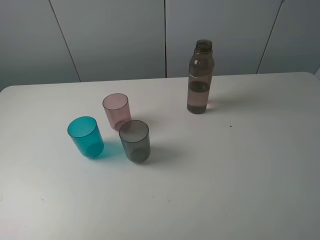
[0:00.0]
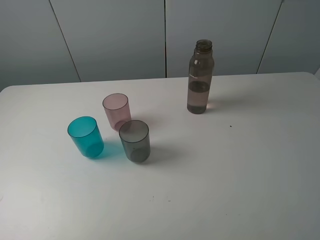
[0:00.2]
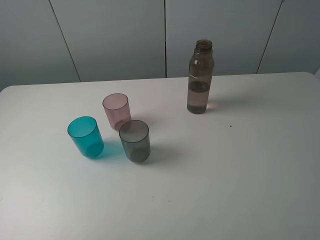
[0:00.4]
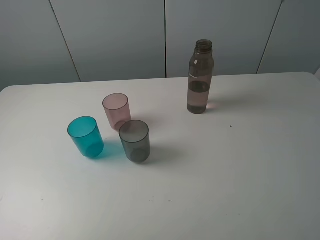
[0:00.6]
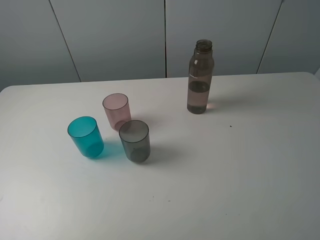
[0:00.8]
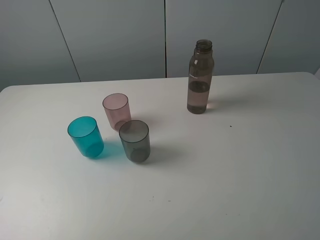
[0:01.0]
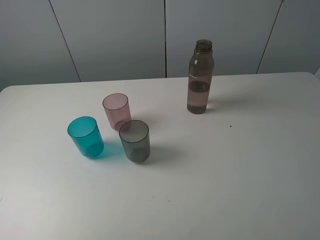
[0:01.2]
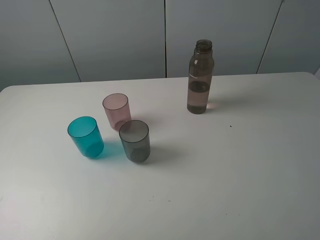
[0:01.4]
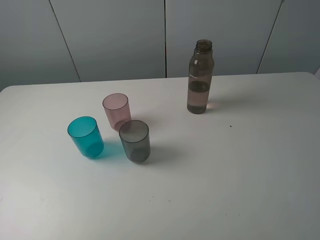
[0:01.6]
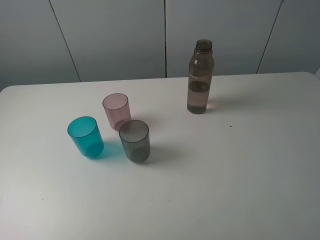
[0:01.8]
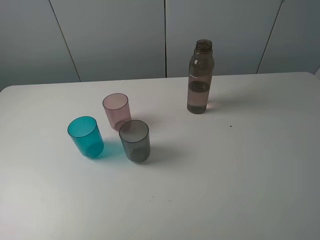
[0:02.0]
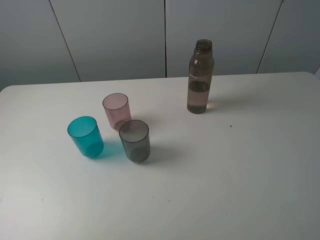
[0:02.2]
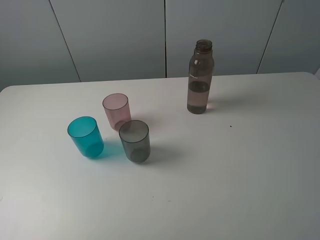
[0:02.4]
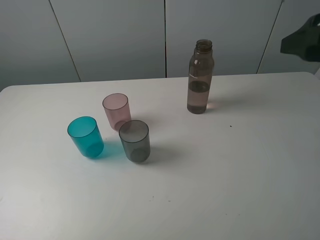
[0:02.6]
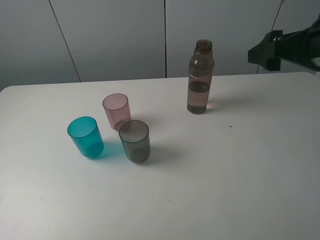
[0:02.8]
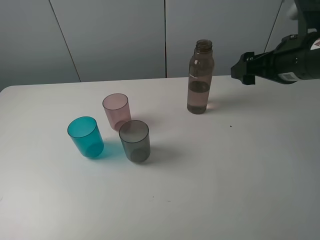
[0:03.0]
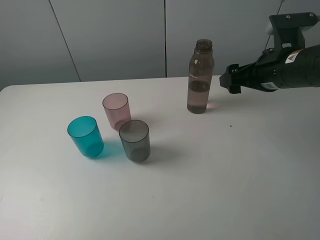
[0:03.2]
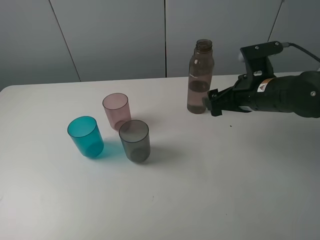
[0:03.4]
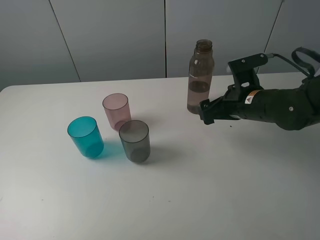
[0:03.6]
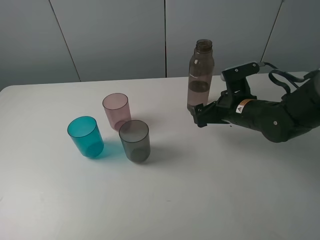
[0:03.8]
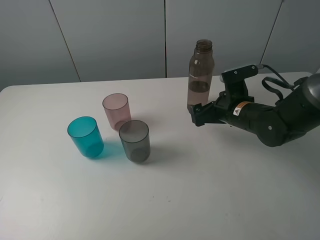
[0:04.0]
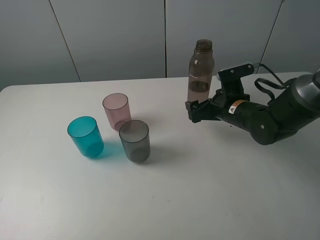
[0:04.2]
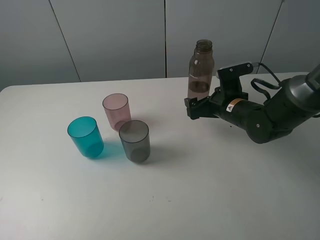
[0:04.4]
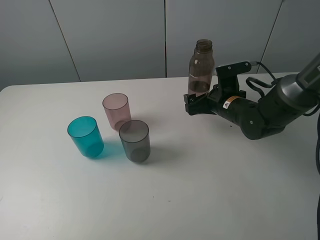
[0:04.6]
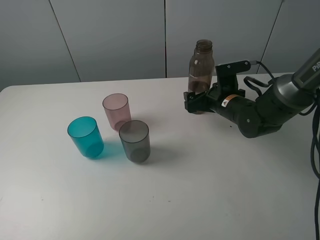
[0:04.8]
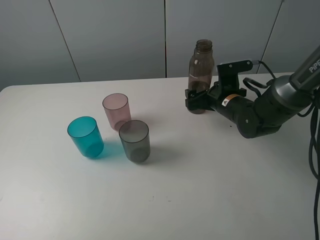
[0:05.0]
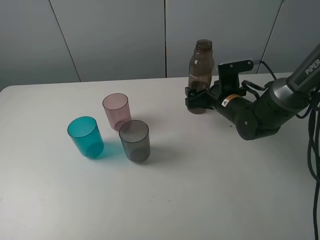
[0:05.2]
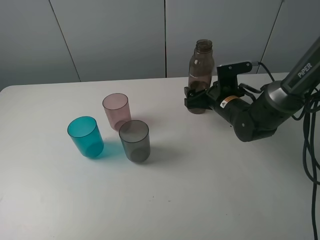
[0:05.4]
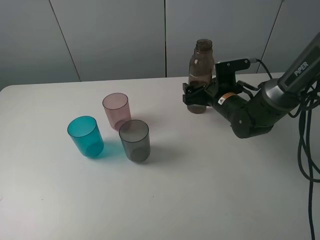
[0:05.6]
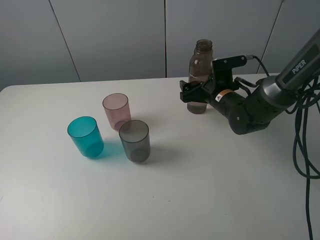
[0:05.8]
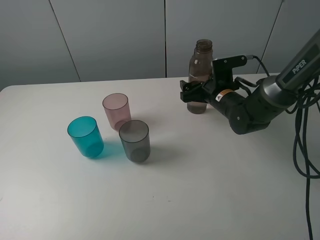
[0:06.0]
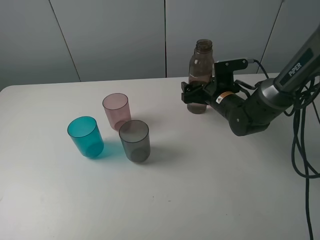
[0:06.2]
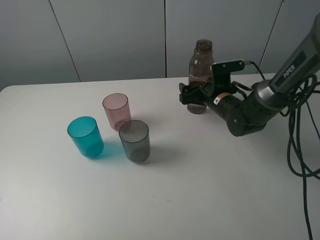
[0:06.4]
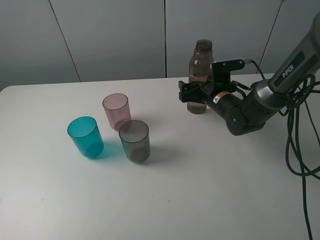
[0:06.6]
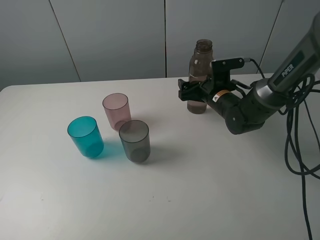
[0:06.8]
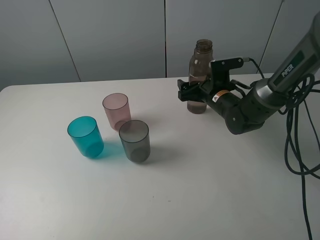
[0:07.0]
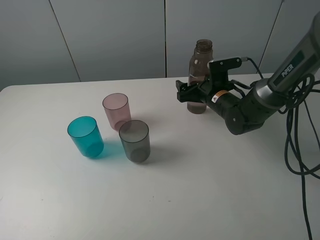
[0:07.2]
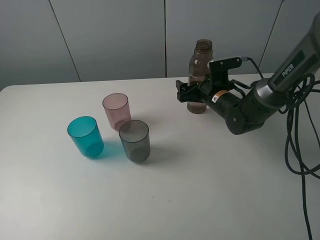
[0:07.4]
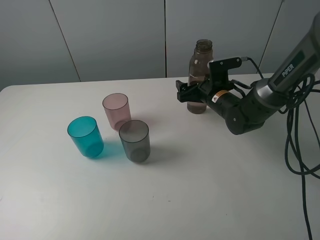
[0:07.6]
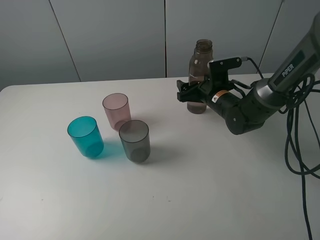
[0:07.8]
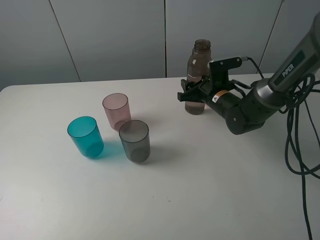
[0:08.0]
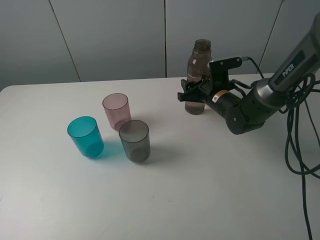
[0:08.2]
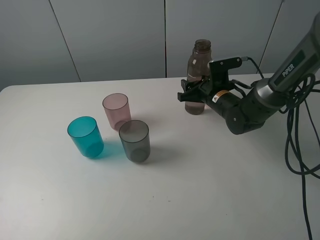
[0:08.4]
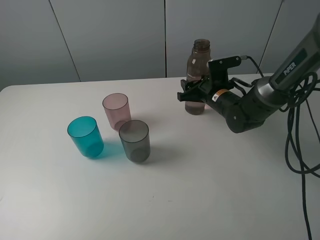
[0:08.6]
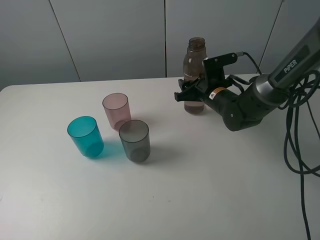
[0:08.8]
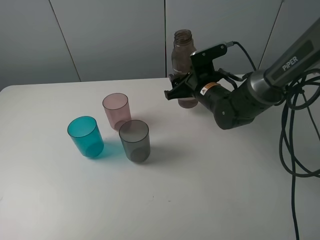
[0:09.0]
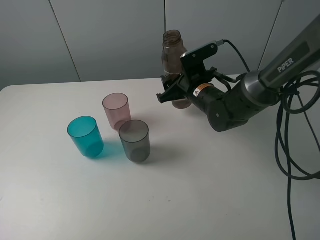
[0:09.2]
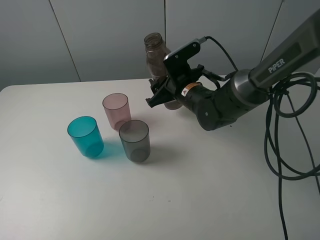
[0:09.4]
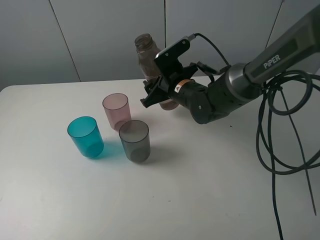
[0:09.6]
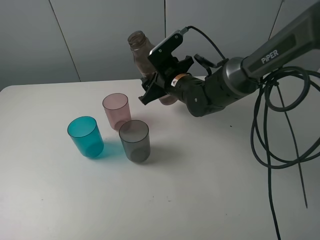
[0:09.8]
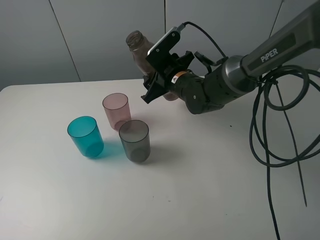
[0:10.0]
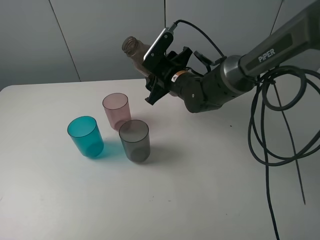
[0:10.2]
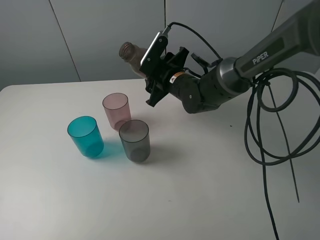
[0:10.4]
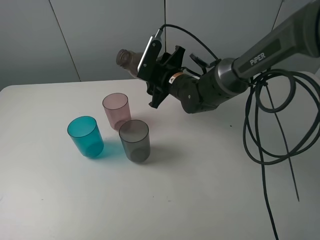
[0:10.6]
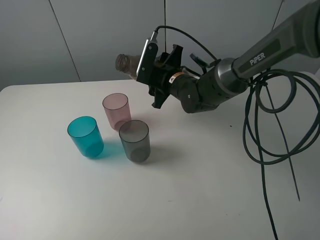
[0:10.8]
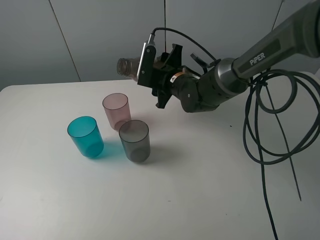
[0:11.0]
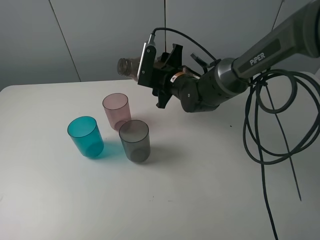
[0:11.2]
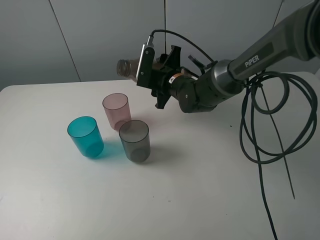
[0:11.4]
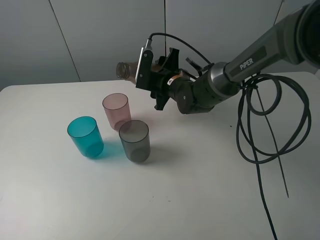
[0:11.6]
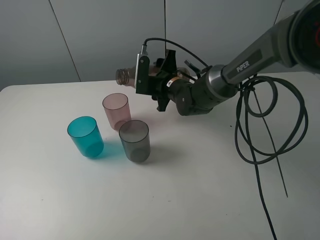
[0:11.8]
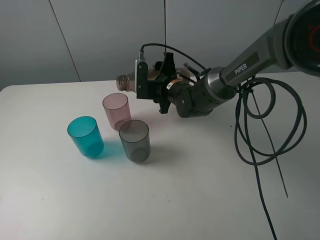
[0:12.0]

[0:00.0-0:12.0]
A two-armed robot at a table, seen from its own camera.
Task of the whole recording: pick up the bottle filled with water and pour water into the middle cup of the three cups.
Step, 0:00.0 to 0:08.4: Grasp the transparent bottle with the right gripper.
0:00.0 to 0:01.6: The two grippers keep their place.
0:01.6 to 0:03.0: The right gripper moves forward, some 25 cm.
0:03.0 to 0:04.4: The right gripper is displaced downward and to the left by some 15 cm.
0:04.4 to 0:07.6: There are only small adjustments of the grippers.
0:07.6 to 0:09.0: The right gripper closes.
0:09.0 to 0:10.4: The right gripper is displaced to the left by approximately 5 cm.

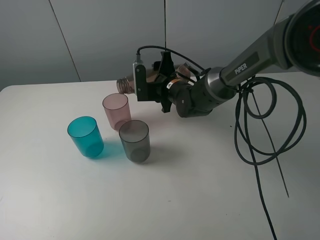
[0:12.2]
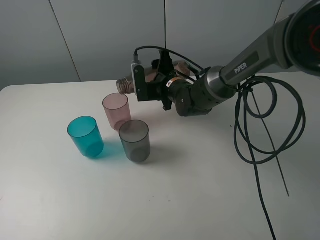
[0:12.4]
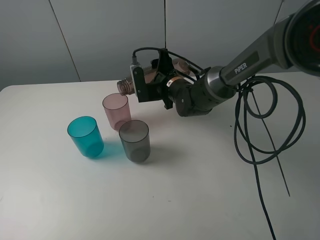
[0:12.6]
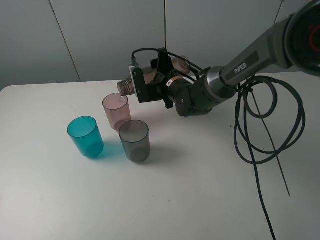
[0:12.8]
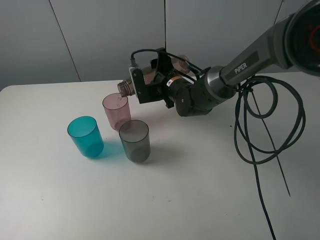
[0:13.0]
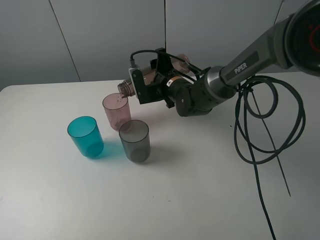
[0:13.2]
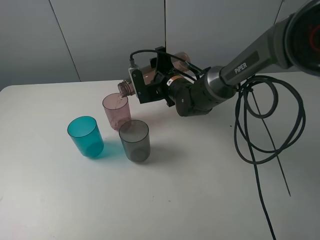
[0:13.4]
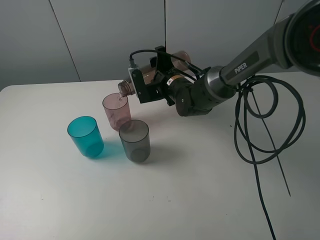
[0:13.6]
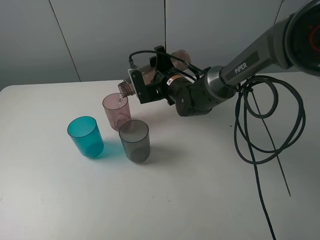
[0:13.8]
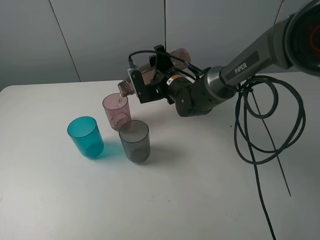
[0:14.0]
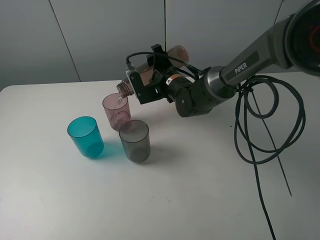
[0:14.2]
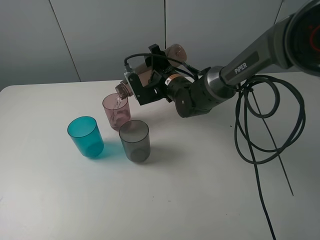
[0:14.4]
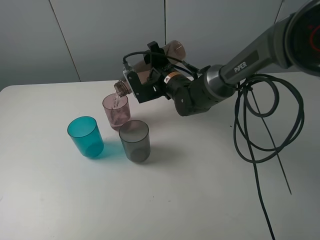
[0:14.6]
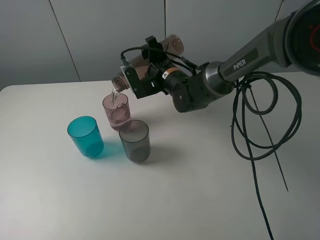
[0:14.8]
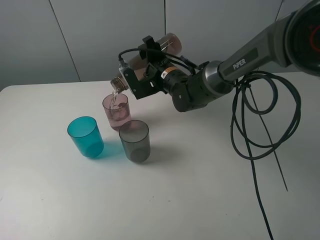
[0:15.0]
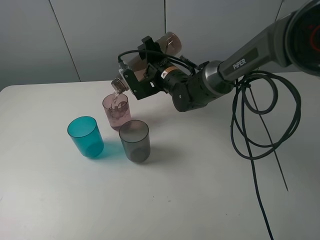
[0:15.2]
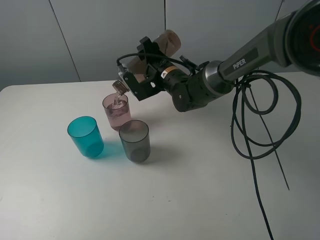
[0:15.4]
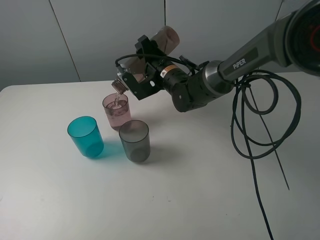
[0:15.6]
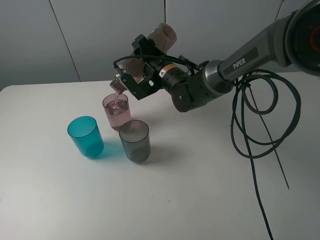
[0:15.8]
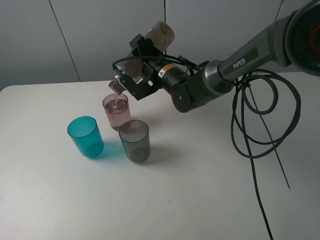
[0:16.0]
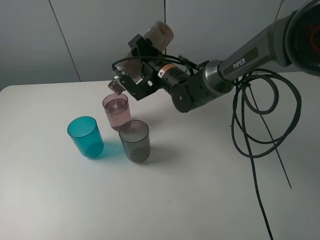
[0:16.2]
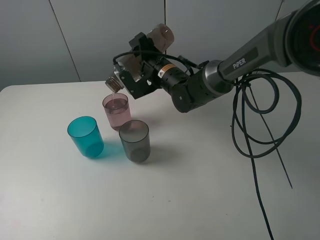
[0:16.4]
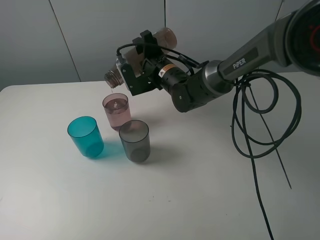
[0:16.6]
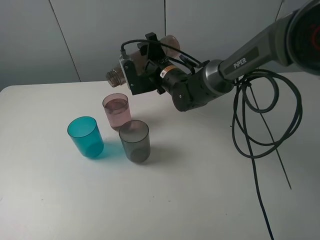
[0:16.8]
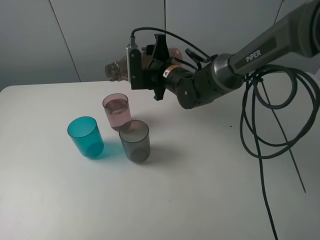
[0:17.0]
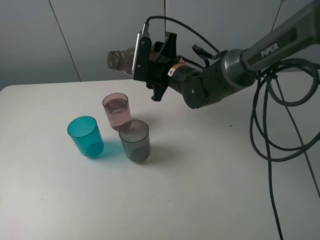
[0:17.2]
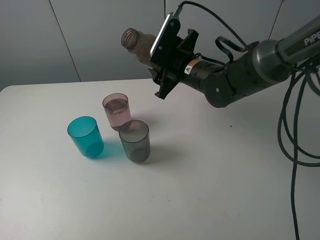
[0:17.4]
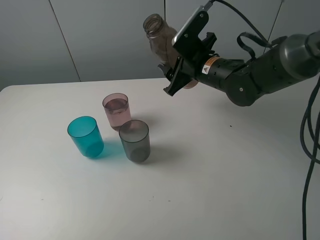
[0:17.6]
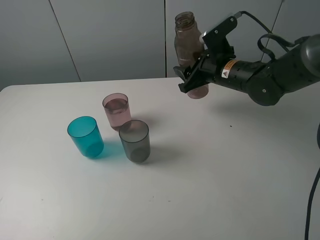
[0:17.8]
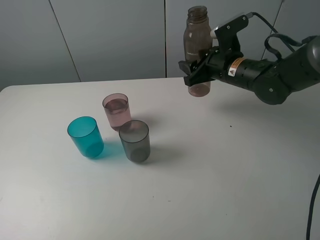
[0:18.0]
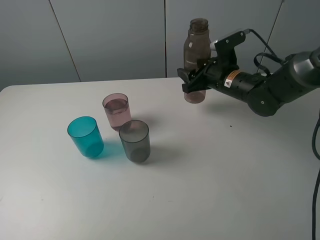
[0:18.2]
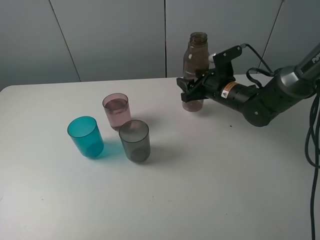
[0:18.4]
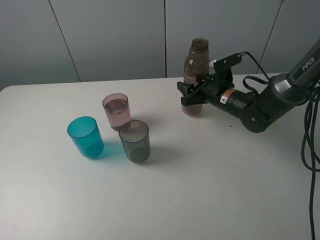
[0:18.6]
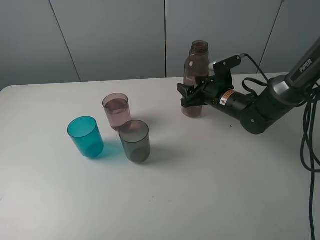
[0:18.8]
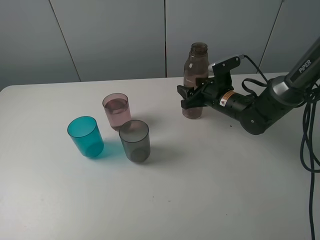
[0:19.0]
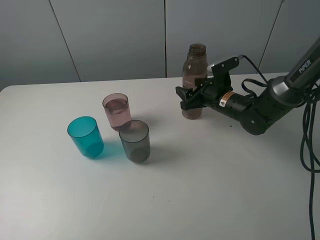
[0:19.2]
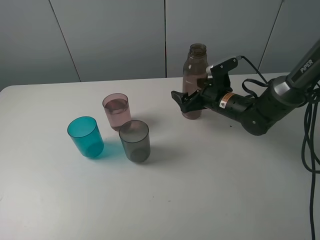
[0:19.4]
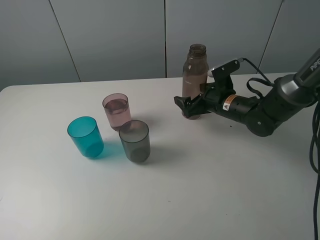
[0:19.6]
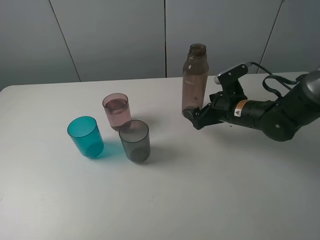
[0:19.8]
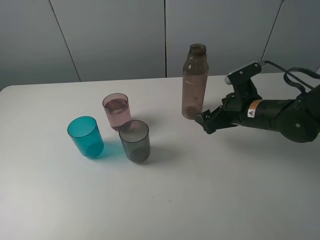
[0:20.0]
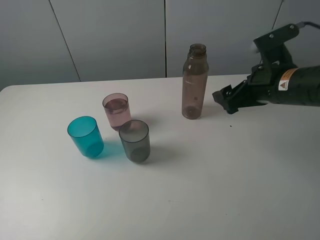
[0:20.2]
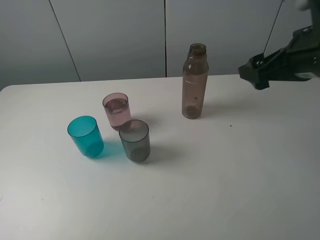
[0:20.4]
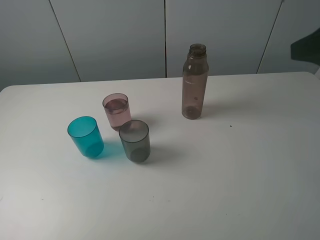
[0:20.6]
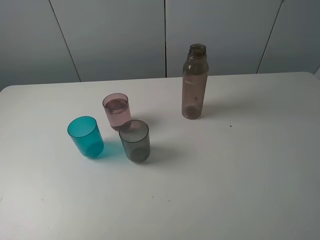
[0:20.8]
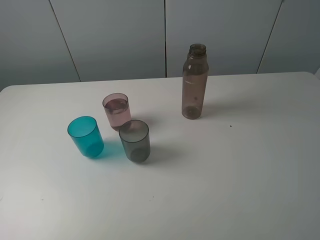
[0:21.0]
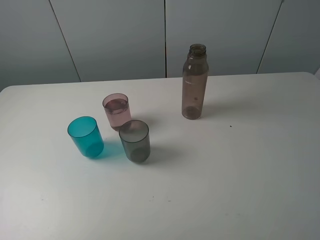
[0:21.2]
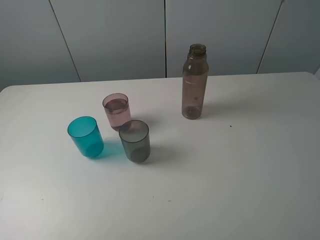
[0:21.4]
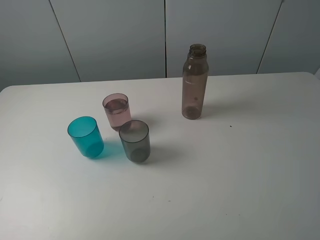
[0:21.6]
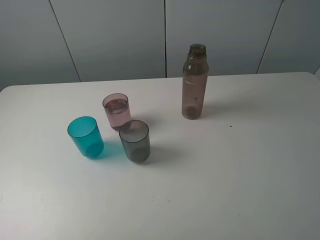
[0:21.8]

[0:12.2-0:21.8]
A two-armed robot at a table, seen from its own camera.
Task of the whole recording: pick up the bottle filled with water and pour water into the middle cup of the three cups.
Step, 0:12.2 to 0:16.8: Pour water from transparent bottle to red cup with the right gripper.
Step, 0:17.0 to 0:19.6: Place the transparent bottle with the right gripper.
0:12.2 to 0:13.8: The grippers make only small movements.
0:13.8 to 0:15.4: There are only small adjustments of the grippers.
0:17.0 to 0:18.6: The right gripper heads to the right and downward, covering about 15 cm.
0:18.6 to 0:20.2: The right gripper moves upward, backward and to the right, approximately 20 cm, and opens up.
0:20.2 to 0:21.8: The right gripper heads backward, covering about 25 cm.

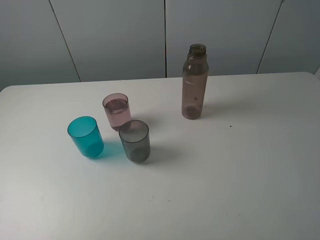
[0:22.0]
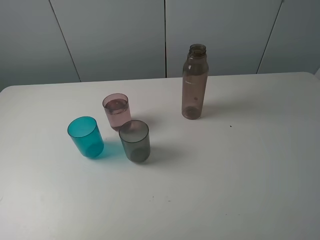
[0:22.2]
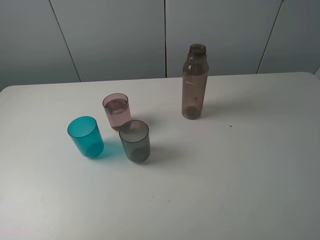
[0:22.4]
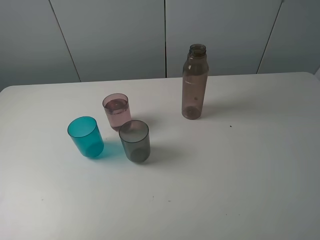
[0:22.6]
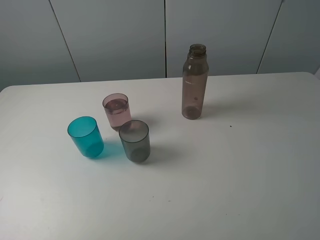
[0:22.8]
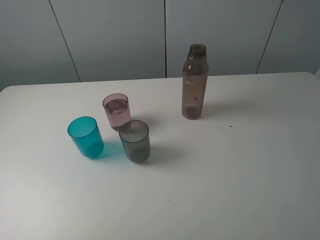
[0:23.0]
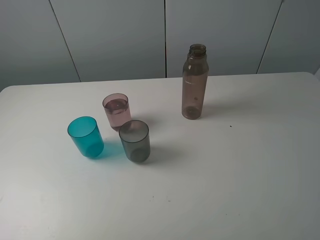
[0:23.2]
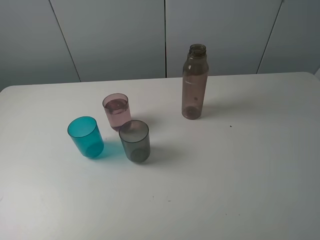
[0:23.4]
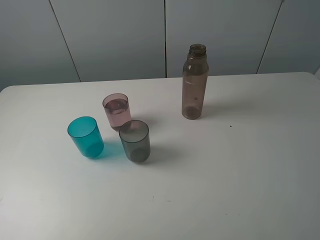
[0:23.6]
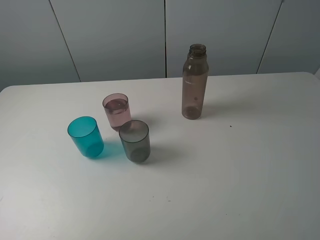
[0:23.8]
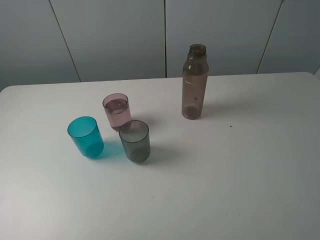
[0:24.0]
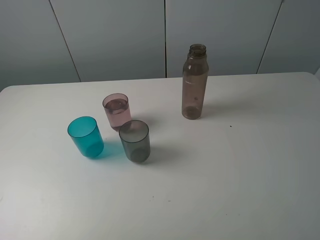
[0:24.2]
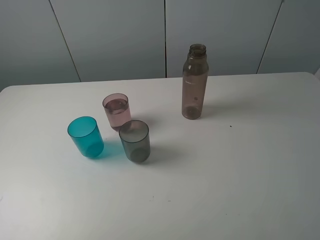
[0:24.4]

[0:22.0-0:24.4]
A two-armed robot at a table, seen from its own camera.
Task of the whole recording: pick up the bottle filled with water and pour water into the middle cup of the three cups.
0:23.2 to 0:24.4: The two grippers keep their place.
